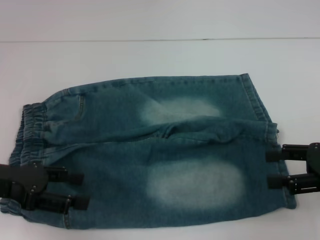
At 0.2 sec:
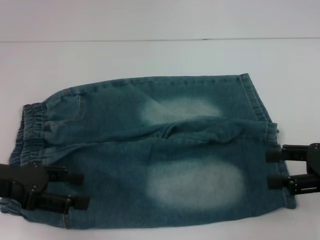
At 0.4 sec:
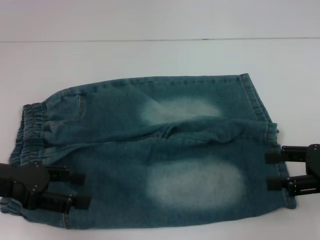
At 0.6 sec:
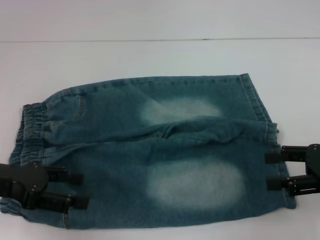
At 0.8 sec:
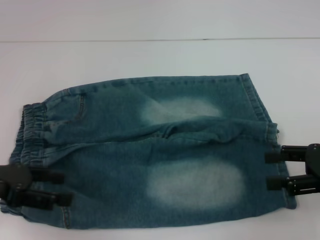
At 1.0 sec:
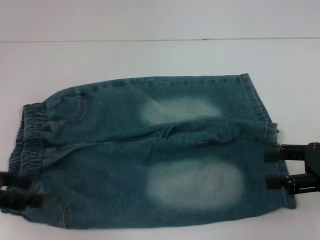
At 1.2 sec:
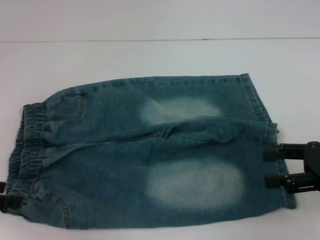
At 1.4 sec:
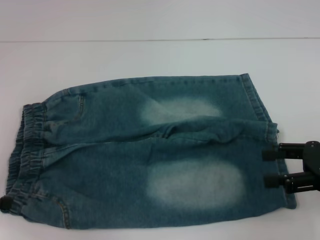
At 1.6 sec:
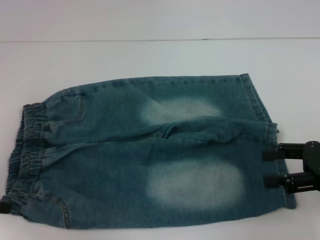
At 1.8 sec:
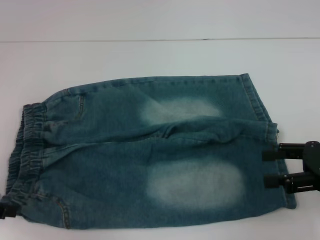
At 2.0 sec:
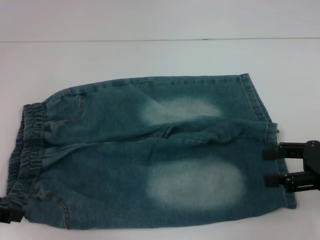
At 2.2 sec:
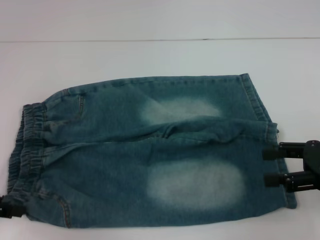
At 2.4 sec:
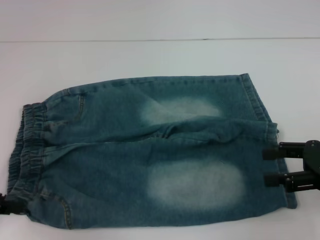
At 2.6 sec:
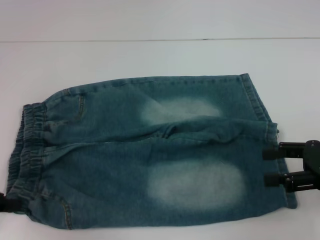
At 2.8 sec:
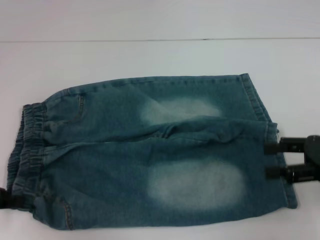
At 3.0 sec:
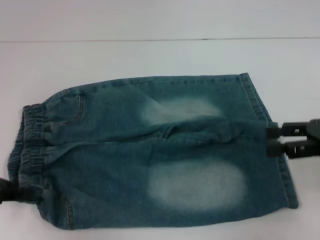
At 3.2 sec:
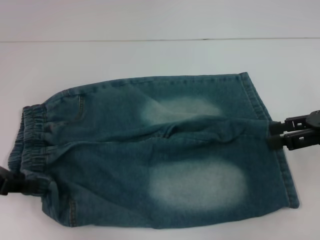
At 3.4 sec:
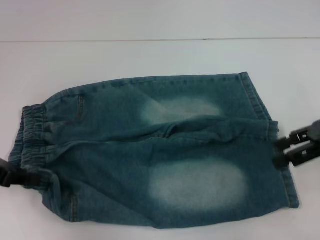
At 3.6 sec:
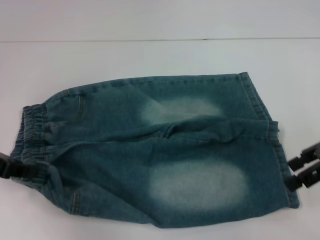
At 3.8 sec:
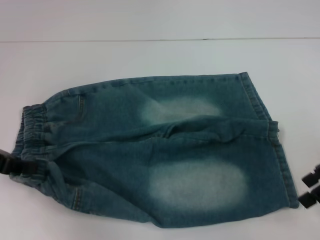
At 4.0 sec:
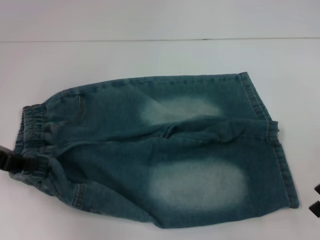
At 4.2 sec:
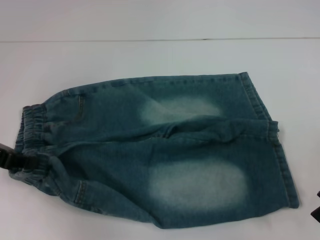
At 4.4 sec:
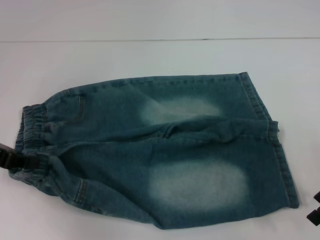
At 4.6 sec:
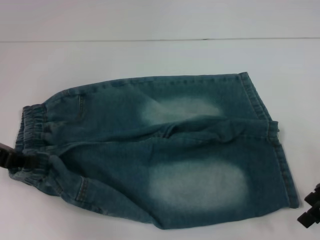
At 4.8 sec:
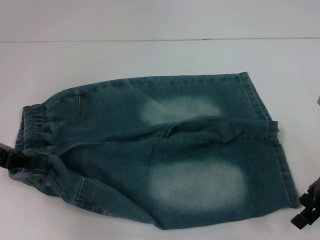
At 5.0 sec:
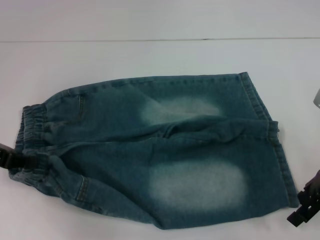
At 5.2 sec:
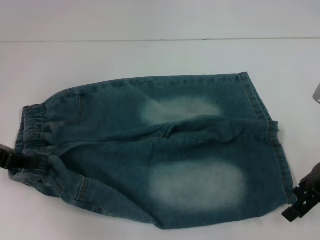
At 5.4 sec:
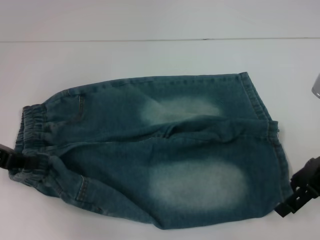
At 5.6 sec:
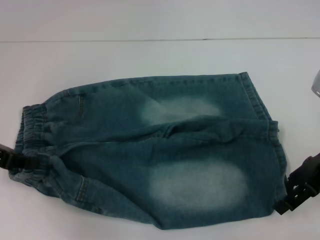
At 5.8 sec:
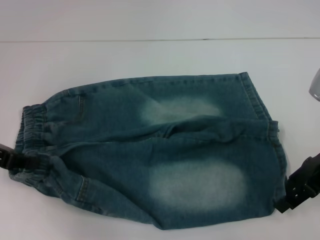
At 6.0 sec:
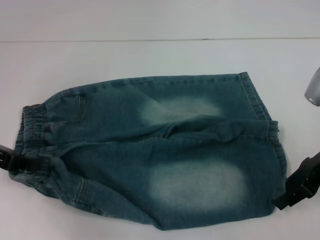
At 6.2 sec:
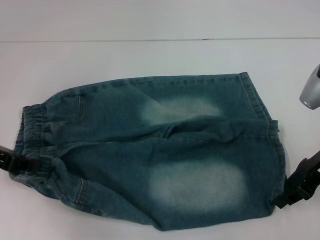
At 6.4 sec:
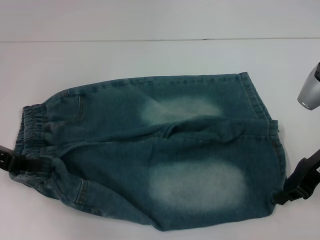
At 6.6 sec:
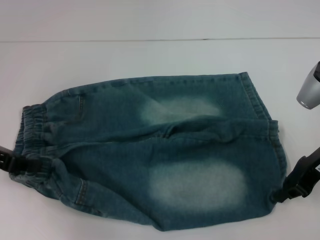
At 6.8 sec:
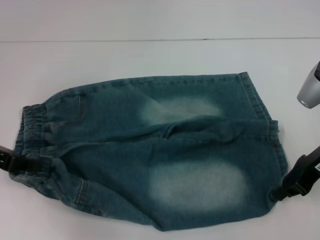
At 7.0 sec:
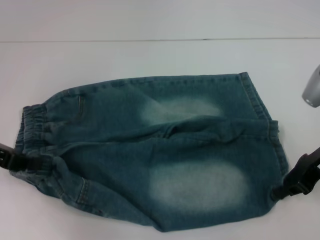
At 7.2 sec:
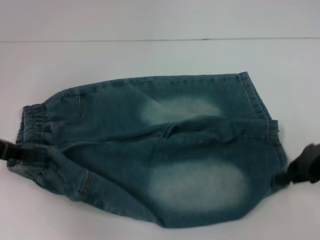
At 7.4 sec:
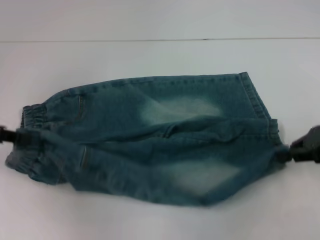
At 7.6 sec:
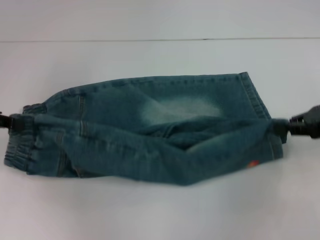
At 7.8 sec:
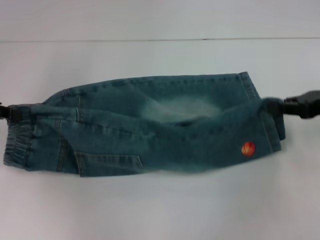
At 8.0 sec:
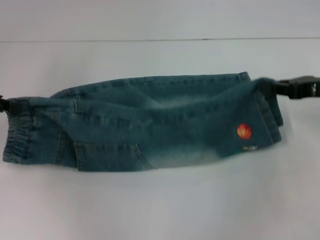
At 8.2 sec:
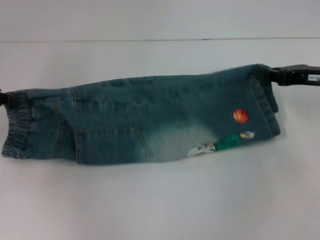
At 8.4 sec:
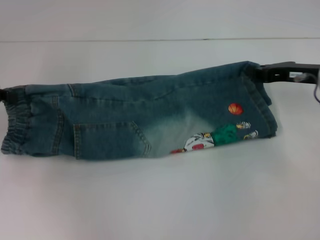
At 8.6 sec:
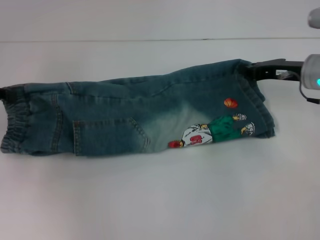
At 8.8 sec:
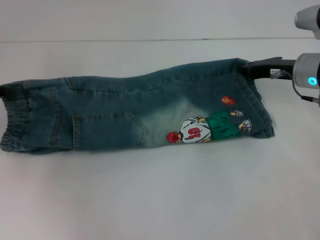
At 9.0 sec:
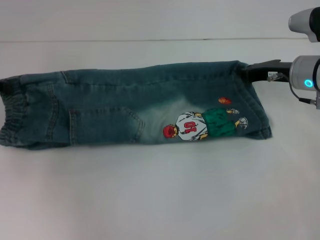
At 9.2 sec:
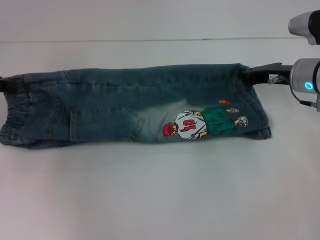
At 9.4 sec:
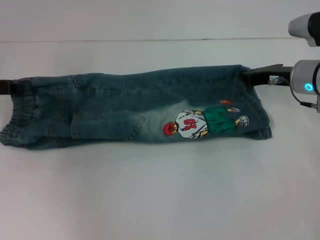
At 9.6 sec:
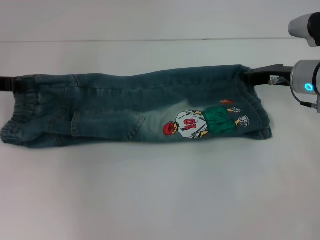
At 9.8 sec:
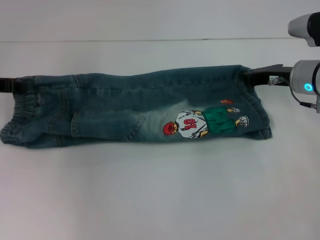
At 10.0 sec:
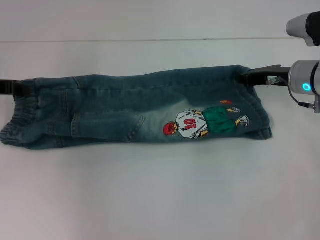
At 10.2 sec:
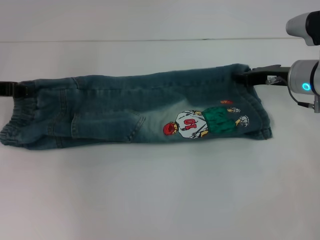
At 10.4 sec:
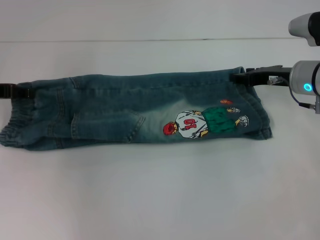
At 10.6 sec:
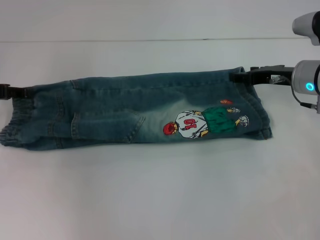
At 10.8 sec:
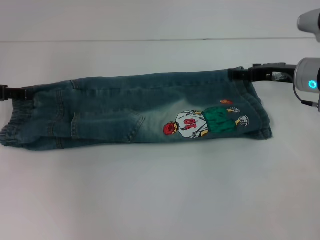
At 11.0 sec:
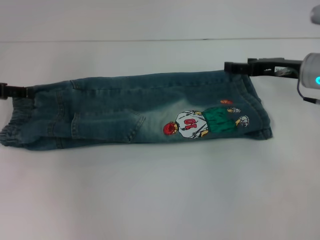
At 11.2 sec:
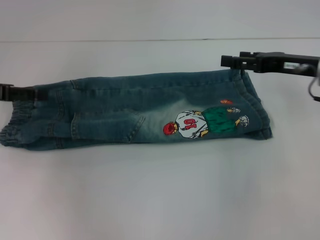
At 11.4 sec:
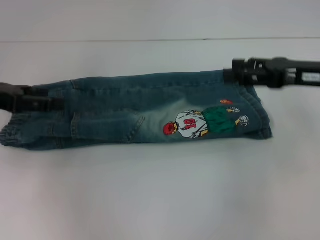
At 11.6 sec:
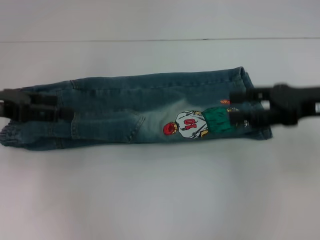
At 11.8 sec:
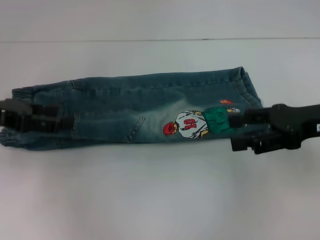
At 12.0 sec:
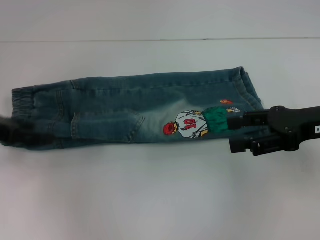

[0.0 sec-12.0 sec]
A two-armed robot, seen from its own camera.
Step, 0.0 sec to 2.8 sec: Hold the lower left waistband with your left hand.
Step, 3.0 sec to 6.4 sec: Grab the lower right pant leg with your right hand.
Step, 6.8 sec to 10.6 sec: Fold upward with your right hand.
0.0 sec to 1.6 sec: The left gripper moves to the left, some 10 cm.
1.6 sec to 3.0 sec: The left gripper closes.
4.4 sec to 6.0 sec: There are only small adjustments of the grippers.
6.0 sec to 7.6 sec: The right gripper goes about 5 cm to the right, and closes up.
7.6 sec to 9.0 sec: The right gripper travels to the left and forward by about 10 cm.
9.0 sec to 10.4 sec: The grippers stay close to where they were, moving slightly.
10.4 sec to 12.0 sec: The right gripper travels backward and upward by about 10 cm, and opens up, while the left gripper shifts about 5 cm backward, and opens.

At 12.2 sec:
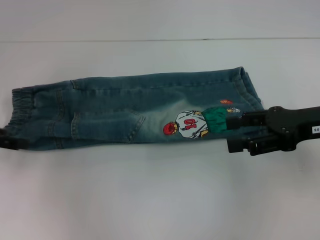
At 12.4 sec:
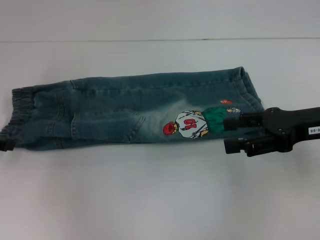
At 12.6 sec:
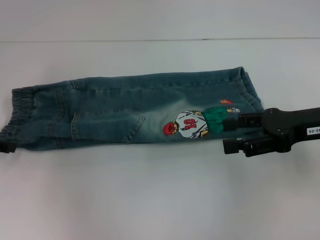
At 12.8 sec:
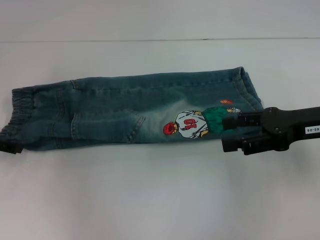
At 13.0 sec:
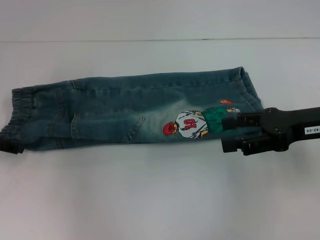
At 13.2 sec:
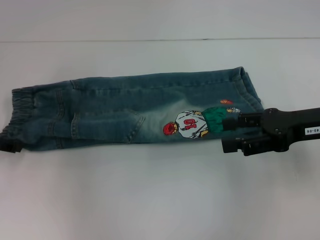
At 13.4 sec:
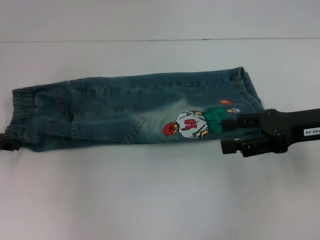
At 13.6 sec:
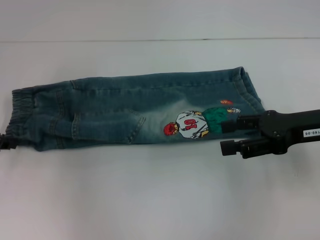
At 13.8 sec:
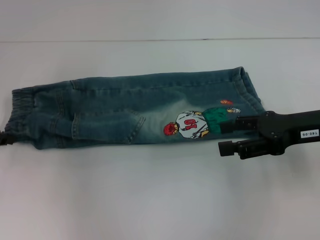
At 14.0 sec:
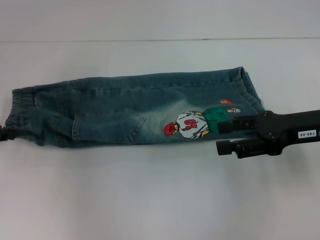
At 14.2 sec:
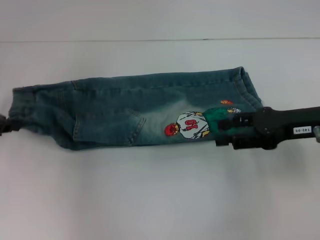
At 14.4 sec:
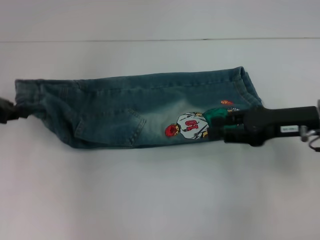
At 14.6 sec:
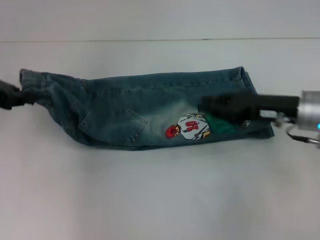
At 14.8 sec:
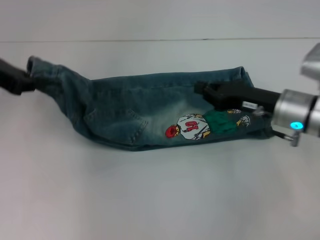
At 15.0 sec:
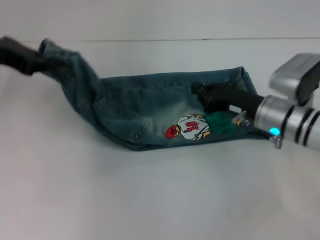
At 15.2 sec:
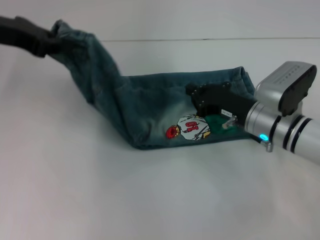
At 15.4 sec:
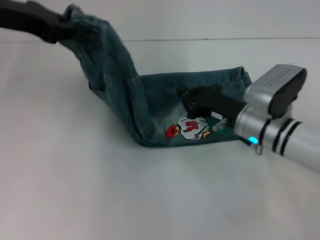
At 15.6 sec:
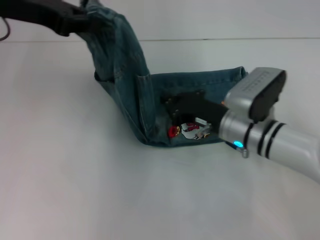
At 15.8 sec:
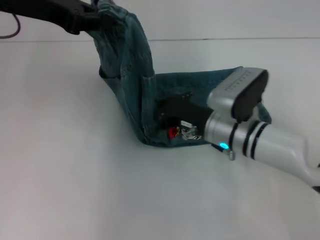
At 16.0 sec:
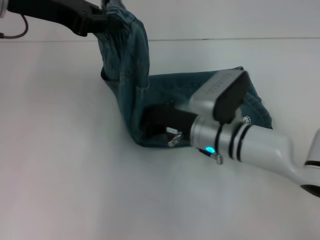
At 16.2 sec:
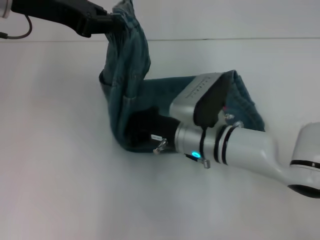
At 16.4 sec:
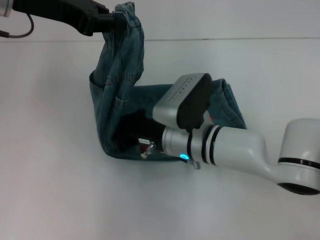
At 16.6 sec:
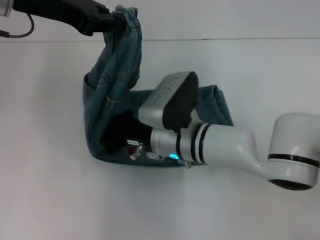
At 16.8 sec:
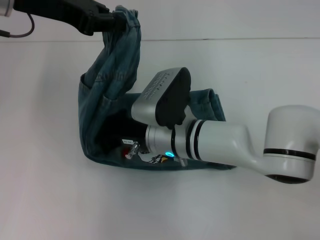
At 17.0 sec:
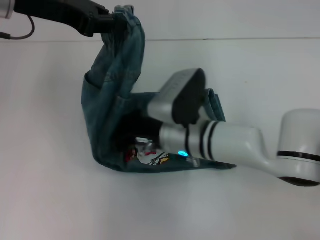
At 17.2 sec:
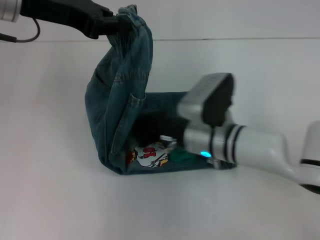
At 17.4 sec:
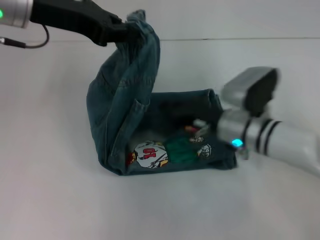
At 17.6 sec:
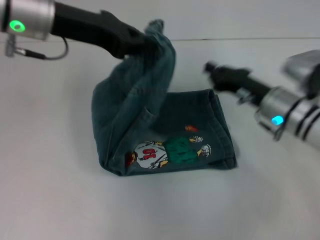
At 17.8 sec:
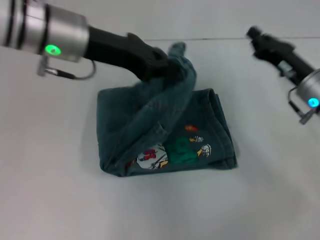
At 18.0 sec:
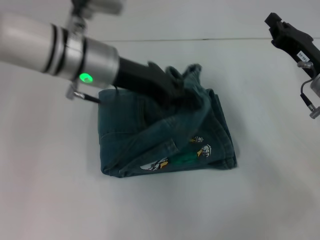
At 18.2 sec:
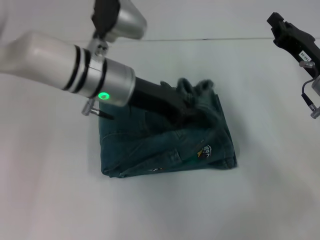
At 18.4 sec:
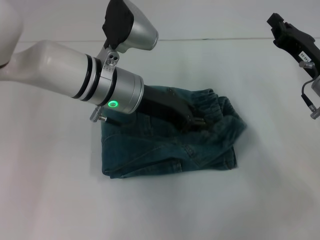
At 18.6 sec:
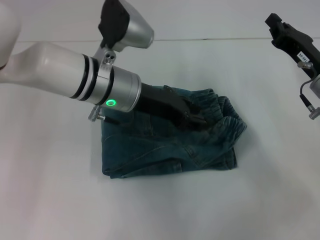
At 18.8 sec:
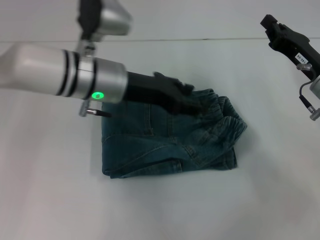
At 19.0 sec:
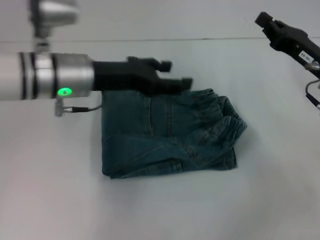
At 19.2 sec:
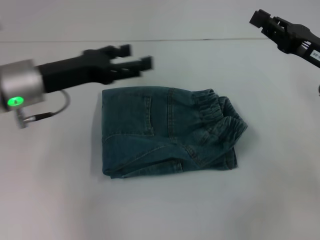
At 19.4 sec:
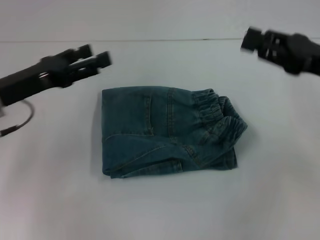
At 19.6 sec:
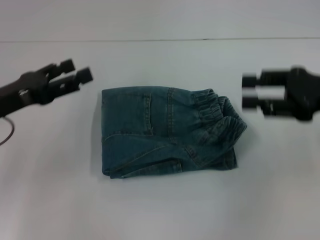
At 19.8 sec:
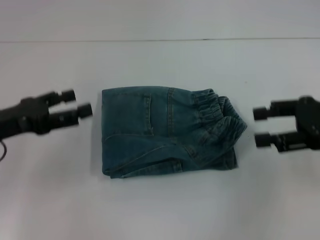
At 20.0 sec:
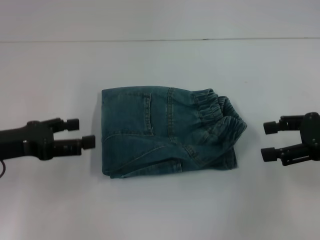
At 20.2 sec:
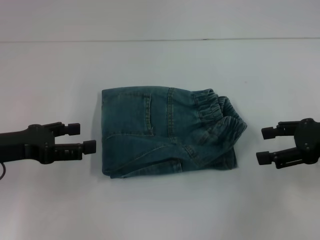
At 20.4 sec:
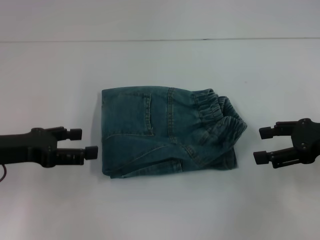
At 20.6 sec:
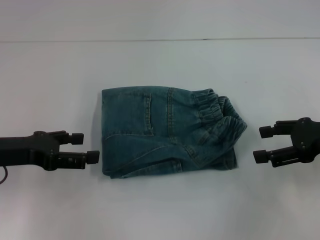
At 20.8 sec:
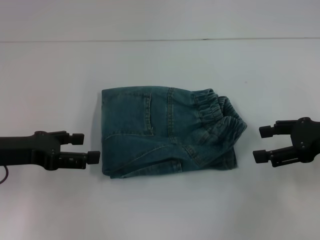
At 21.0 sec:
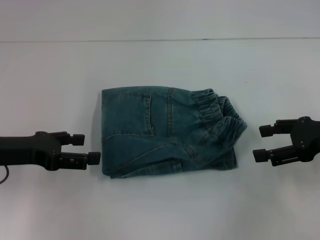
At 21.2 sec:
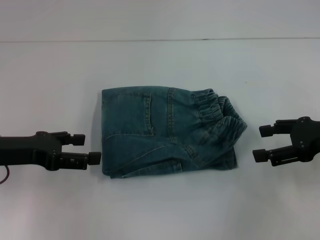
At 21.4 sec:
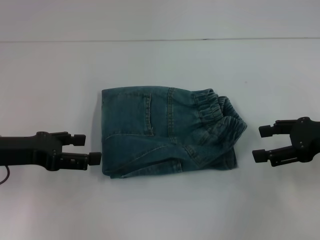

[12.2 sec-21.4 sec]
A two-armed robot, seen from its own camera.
Step, 13.8 sec to 16.6 sec: Press the middle of the pants with your right hand.
Step, 16.8 sec to 18.4 sec: Fold to the right with your left hand.
12.2 sec to 13.8 sec: The left gripper closes up.
13.8 sec to 15.2 sec: The left gripper heads upward and to the right, covering about 15 cm, while the right gripper is displaced downward and to the left by some 15 cm, and closes up.
15.2 sec to 16.8 sec: The left gripper shifts approximately 5 cm to the right. The right gripper shifts approximately 15 cm to the left.
16.8 sec to 18.4 sec: The right gripper is displaced to the right by some 25 cm; the left gripper travels to the right and downward by about 20 cm.
18.4 sec to 19.8 sec: The left gripper goes approximately 25 cm to the left and backward, and opens. The right gripper heads upward and backward, covering some 10 cm, and opens up.
19.8 sec to 21.4 sec: The right gripper opens its fingers.
